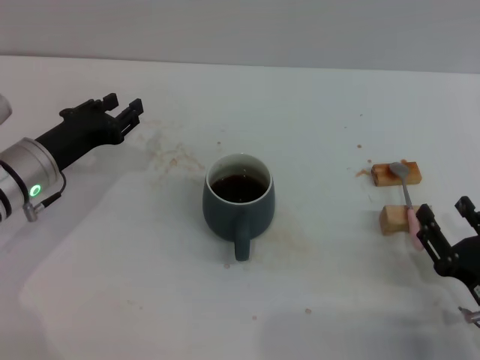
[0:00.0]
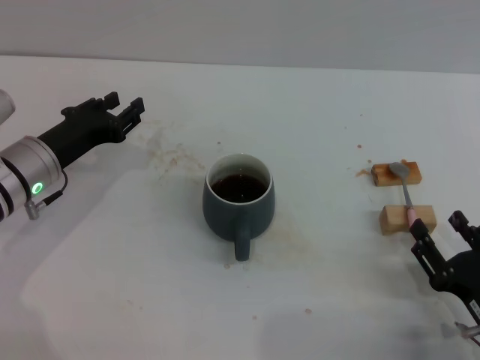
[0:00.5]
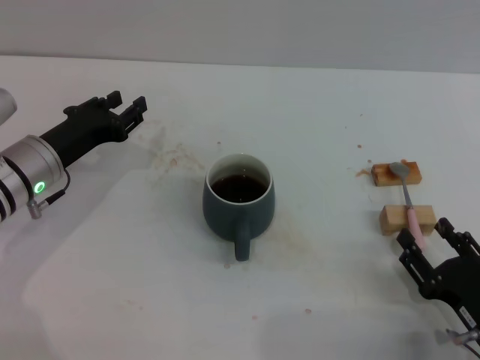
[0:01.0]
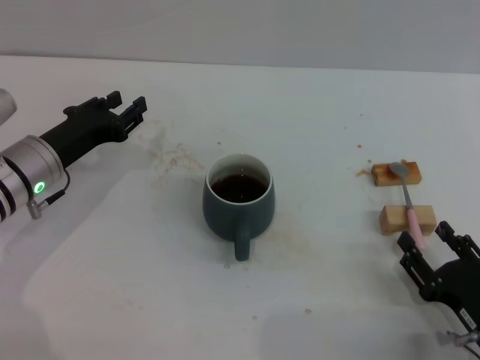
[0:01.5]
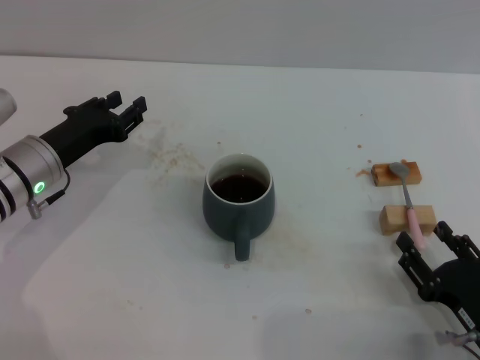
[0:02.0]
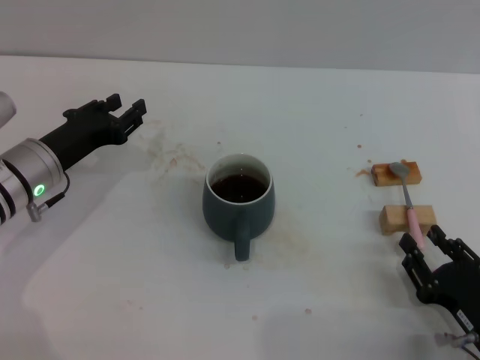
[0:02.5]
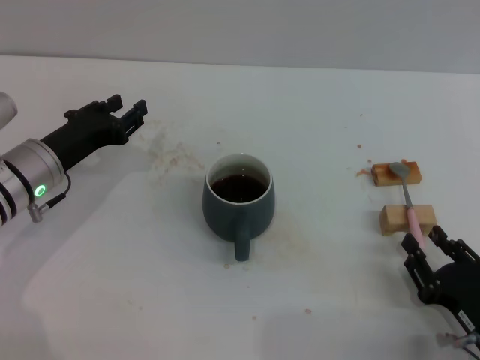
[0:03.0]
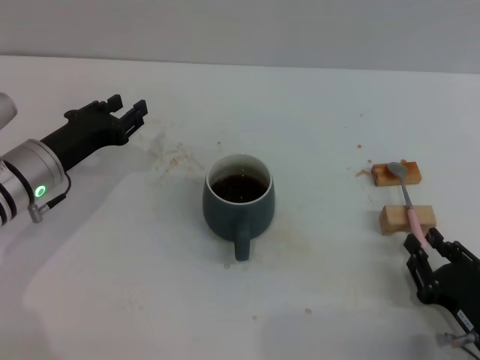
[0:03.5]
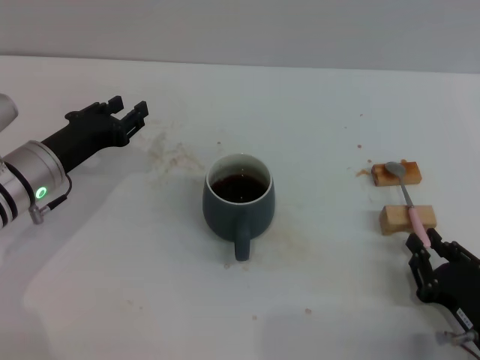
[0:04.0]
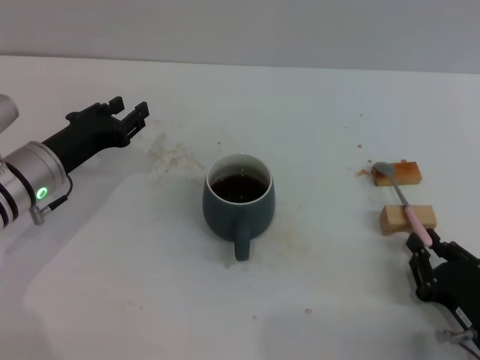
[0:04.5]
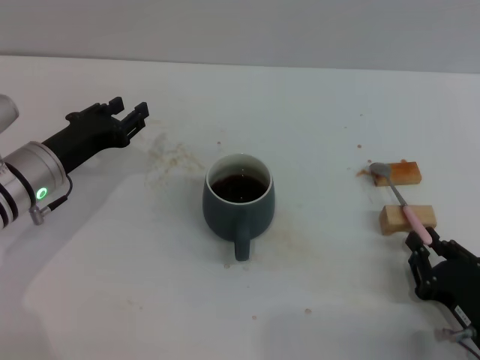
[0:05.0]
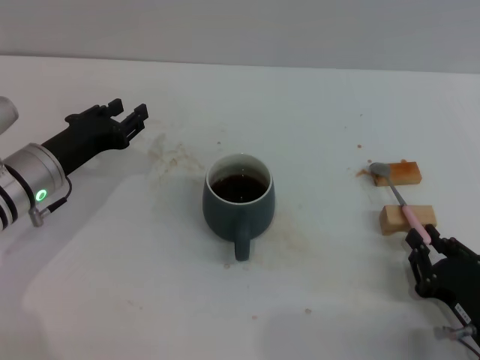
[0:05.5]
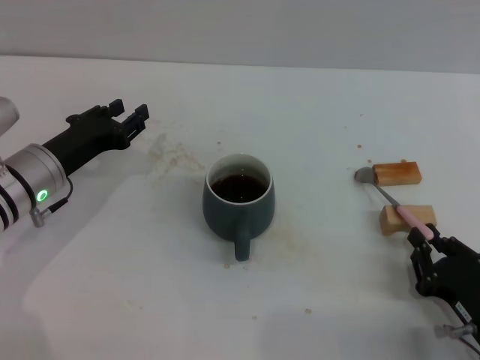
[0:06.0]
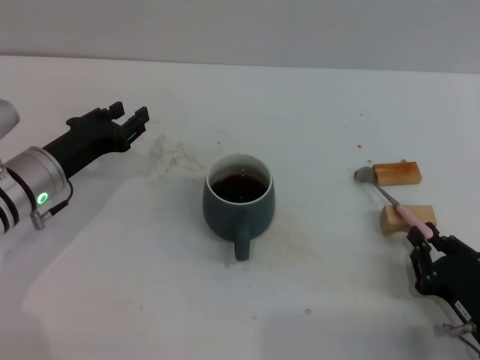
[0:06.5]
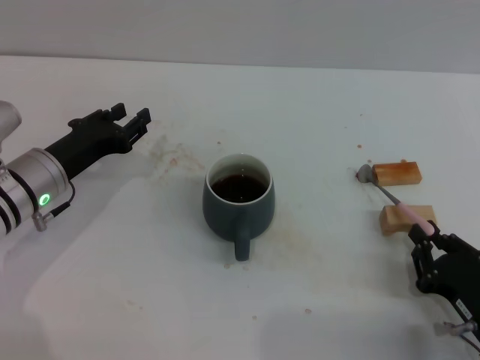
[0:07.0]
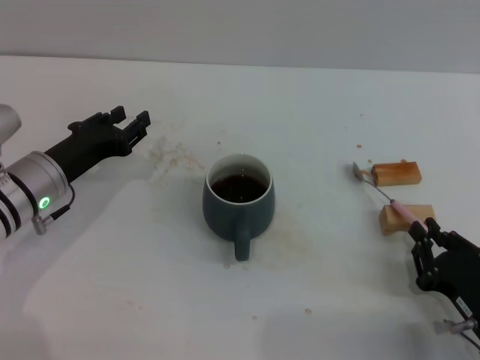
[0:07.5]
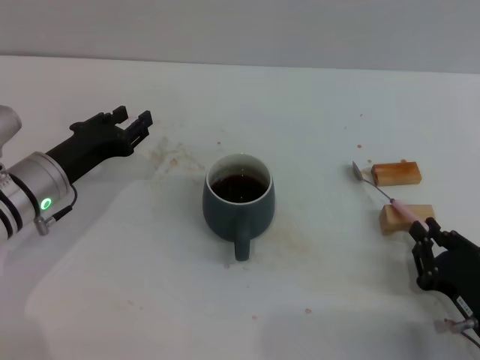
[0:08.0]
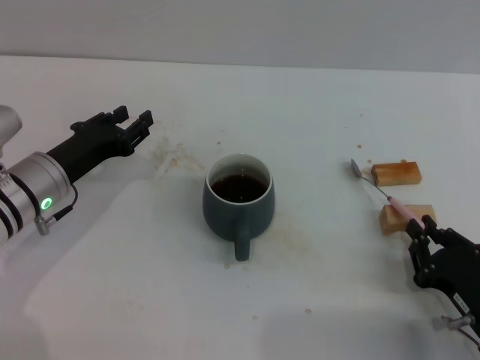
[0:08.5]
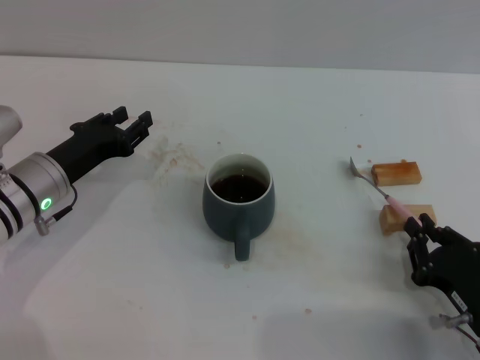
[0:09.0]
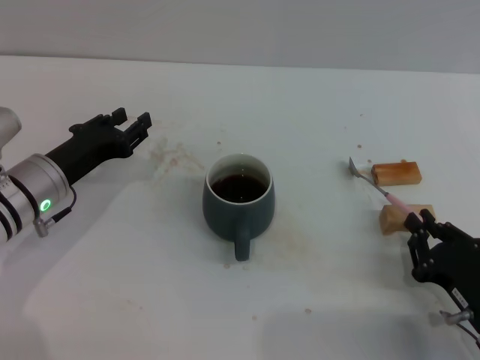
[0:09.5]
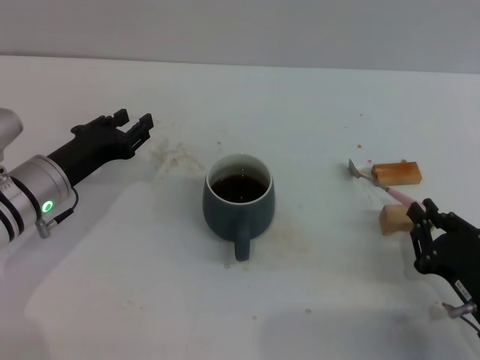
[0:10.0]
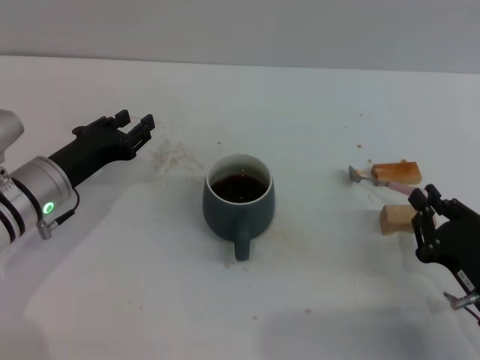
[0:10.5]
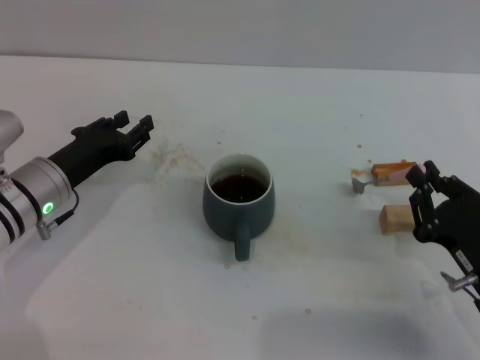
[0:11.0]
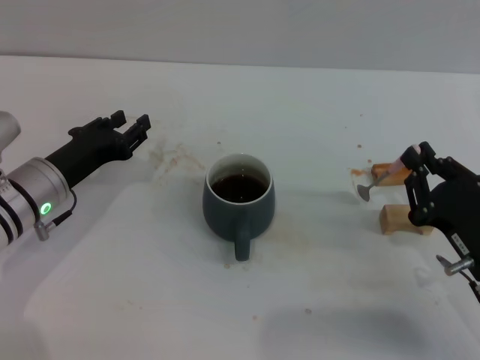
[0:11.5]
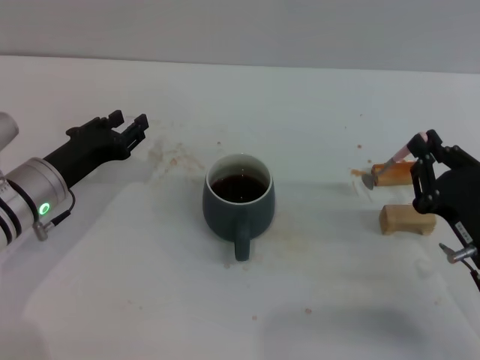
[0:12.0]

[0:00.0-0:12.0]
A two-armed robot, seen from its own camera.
Task of the whole recording: Move the grey cup to the center, lift the pink spoon, stir it three times in the cup, and put the spoon into the cup.
Step, 0:00.0 to 0:12.0: Pick up the spoon with the right gripper.
0:00.0 to 0:02.0: The grippers stay close to where they were, moving slightly.
0:02.0 to 0:04.0: The right gripper closes.
0:04.0 to 0:08.0: Both grippers stay put.
0:08.0 to 0:10.0: Both grippers stay put.
0:10.0 to 0:12.0: The right gripper ends up about 5 cm from where it was.

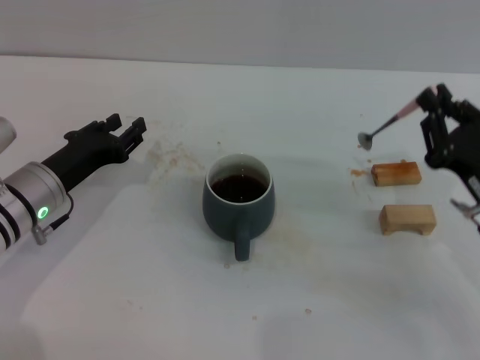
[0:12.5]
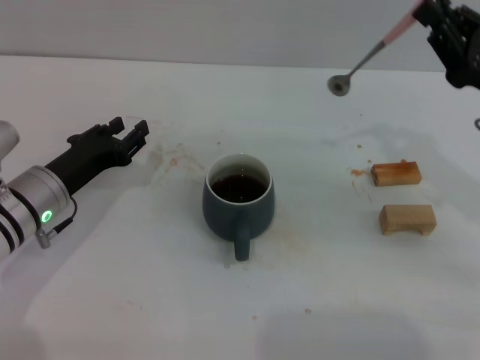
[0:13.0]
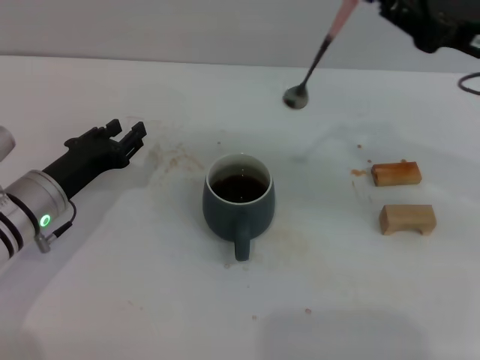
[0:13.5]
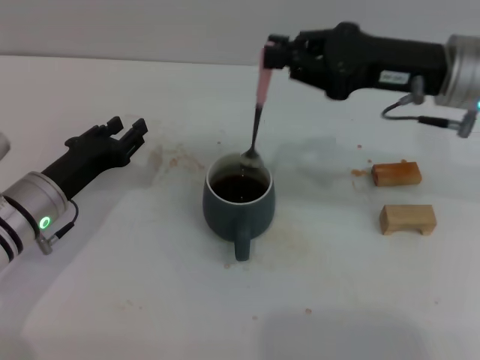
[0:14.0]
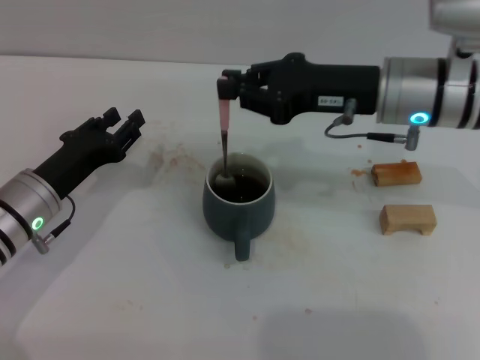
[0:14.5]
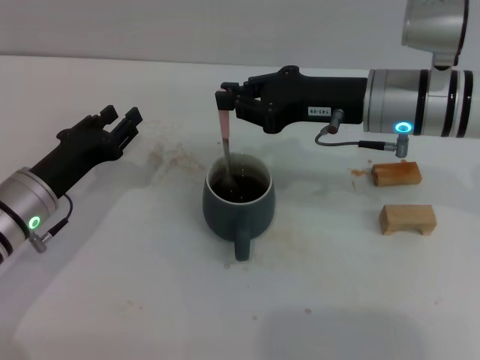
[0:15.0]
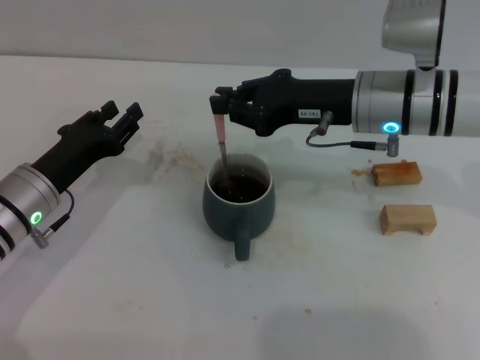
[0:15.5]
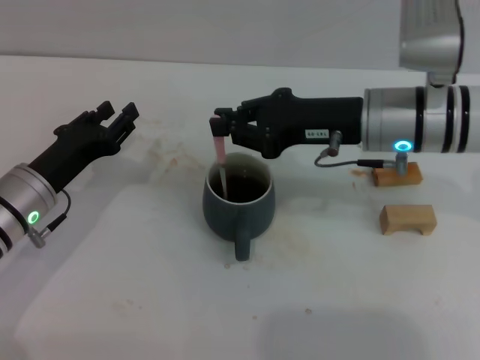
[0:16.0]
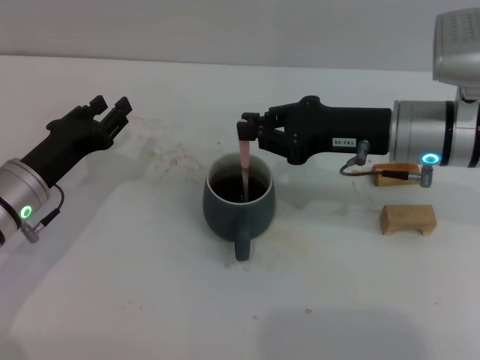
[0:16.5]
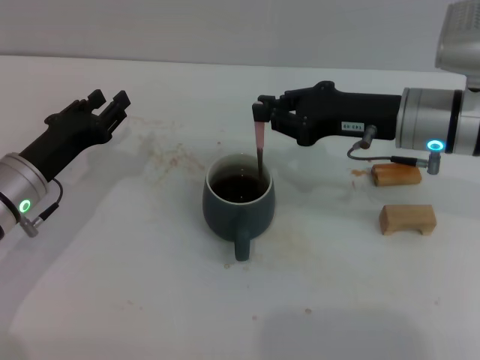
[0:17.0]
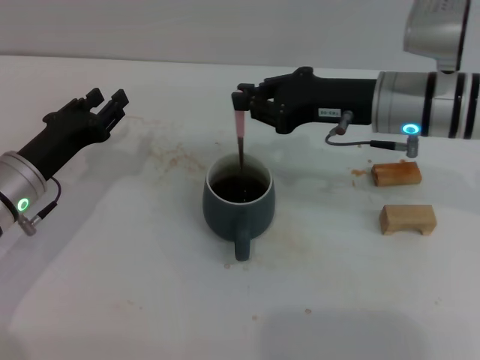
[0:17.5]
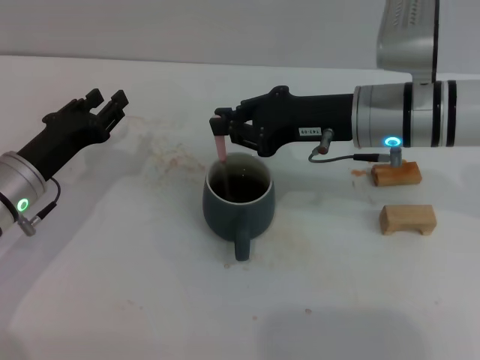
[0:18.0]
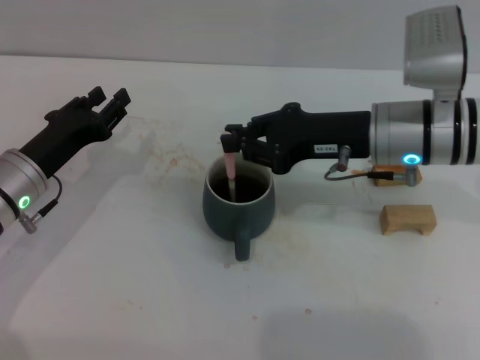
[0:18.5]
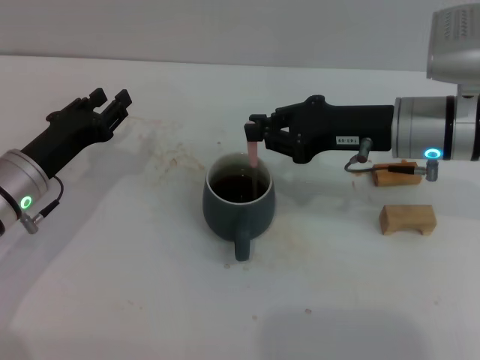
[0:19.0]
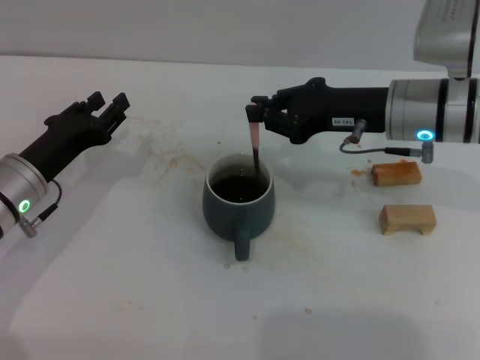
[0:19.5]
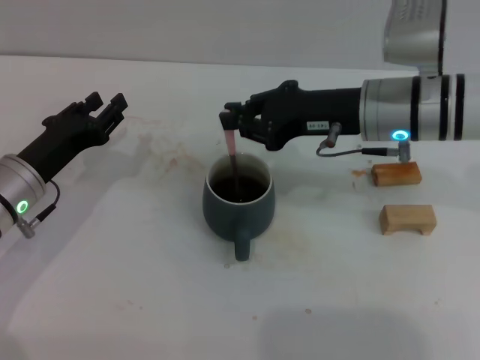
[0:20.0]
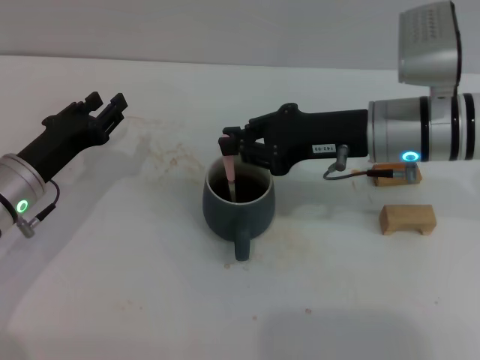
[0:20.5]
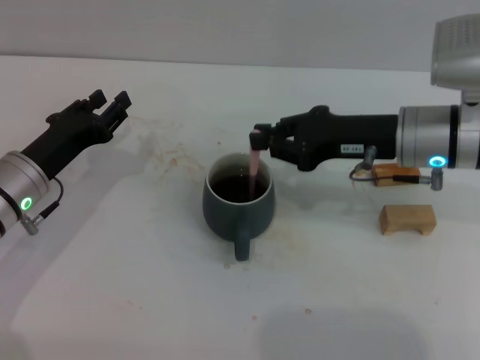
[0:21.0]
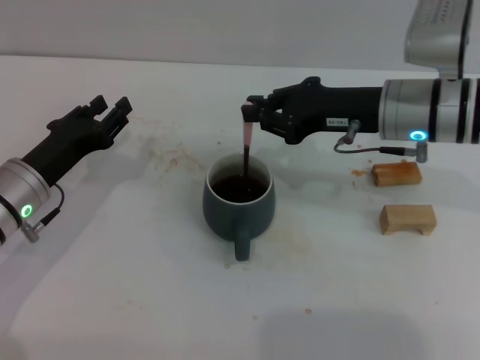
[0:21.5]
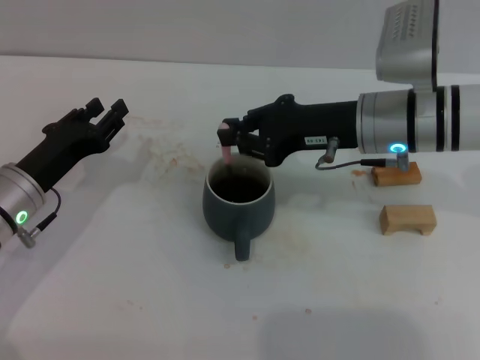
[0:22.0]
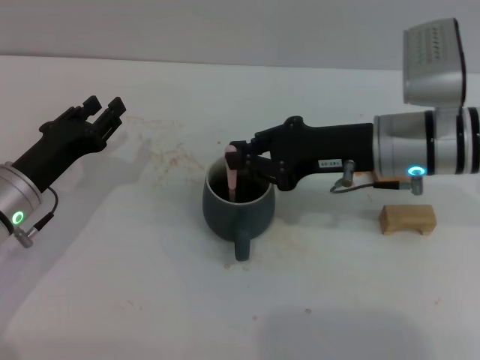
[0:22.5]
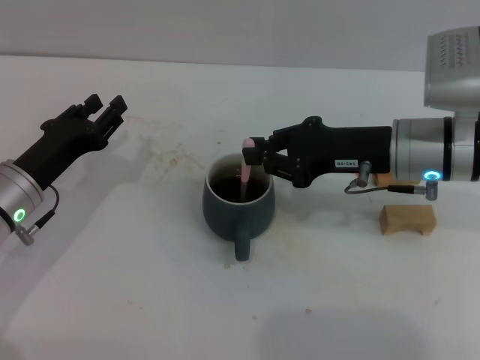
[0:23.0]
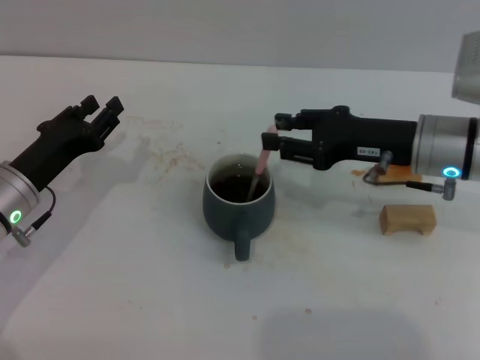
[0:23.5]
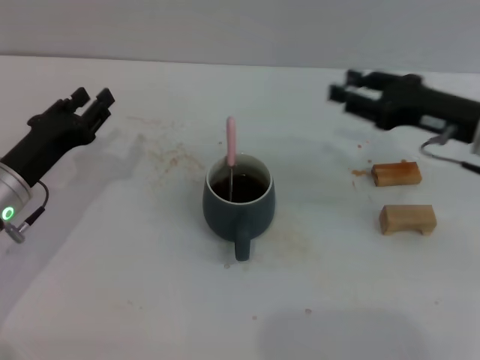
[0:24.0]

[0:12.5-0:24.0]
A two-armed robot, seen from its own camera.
Task of the whole recording: Move the grey cup to the center, lift the pink spoon, stir it three times in the cup, and put the spoon into the cup.
Step, 0:12.5 to 0:23.5: Stir the coffee in the cup with the right gripper.
0:12.5 to 0:14.5: The right gripper heads forward, upward and to the left, covering about 20 cm.
0:14.5 to 0:22.0: The grippers stay close to where they were, moving slightly.
0:22.0 to 0:24.0: The right gripper shifts approximately 10 cm to the right, and opens its fingers.
